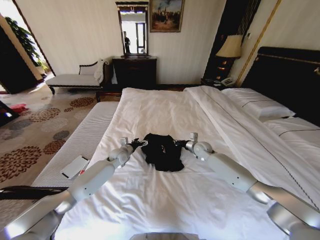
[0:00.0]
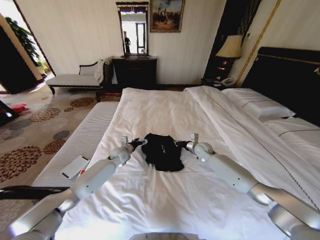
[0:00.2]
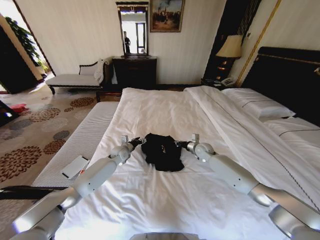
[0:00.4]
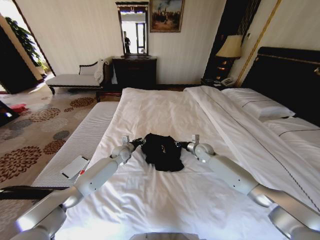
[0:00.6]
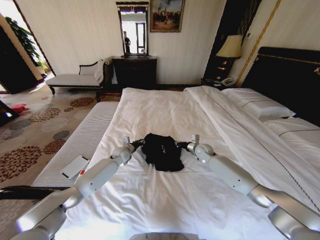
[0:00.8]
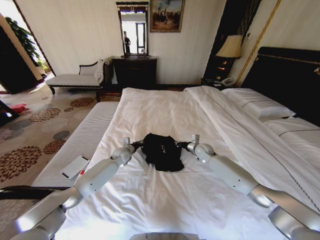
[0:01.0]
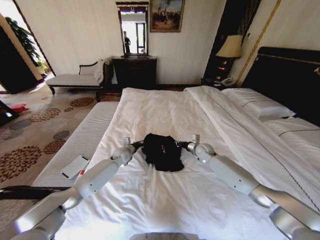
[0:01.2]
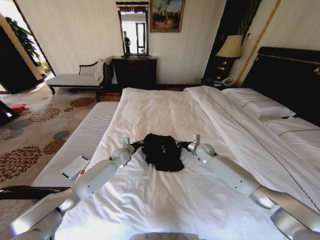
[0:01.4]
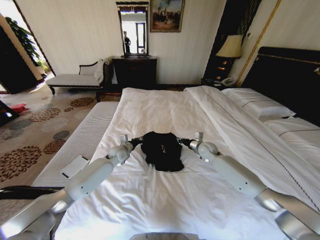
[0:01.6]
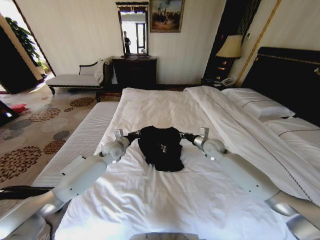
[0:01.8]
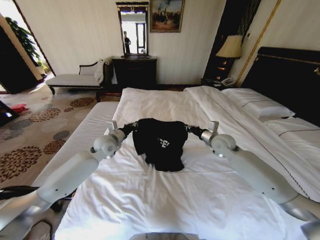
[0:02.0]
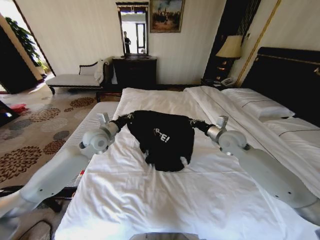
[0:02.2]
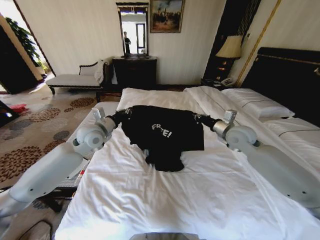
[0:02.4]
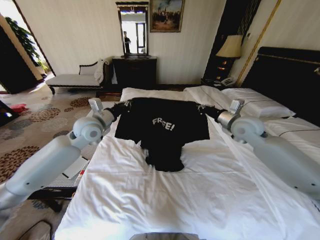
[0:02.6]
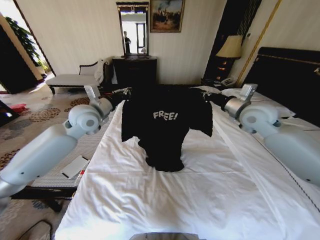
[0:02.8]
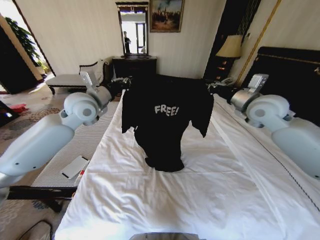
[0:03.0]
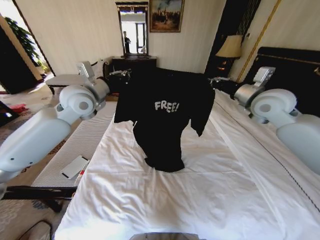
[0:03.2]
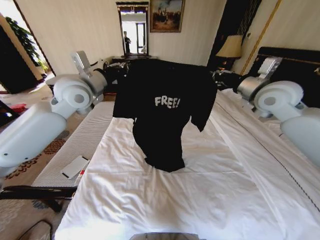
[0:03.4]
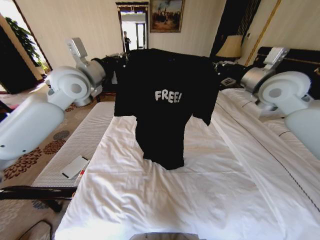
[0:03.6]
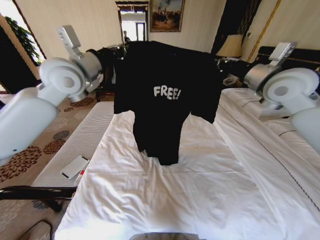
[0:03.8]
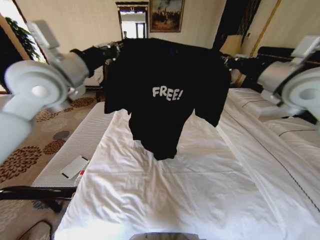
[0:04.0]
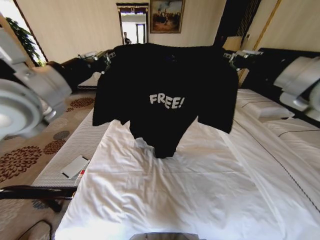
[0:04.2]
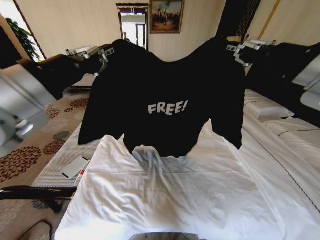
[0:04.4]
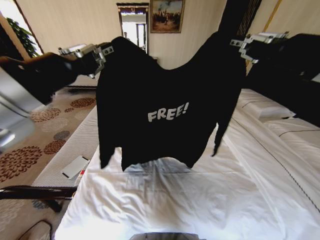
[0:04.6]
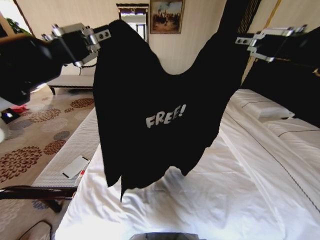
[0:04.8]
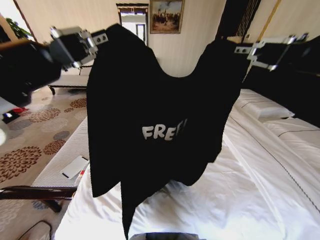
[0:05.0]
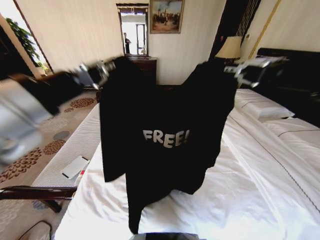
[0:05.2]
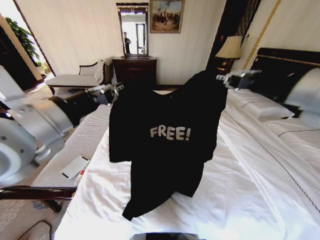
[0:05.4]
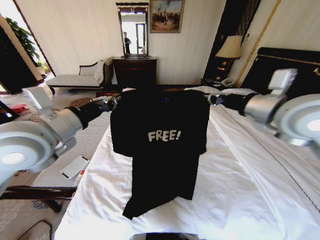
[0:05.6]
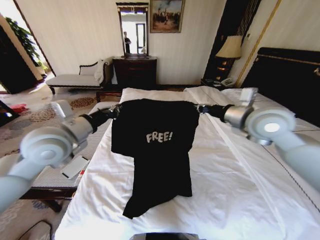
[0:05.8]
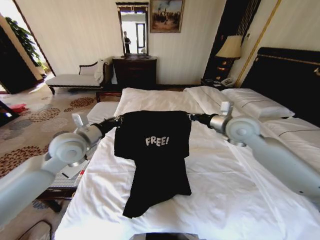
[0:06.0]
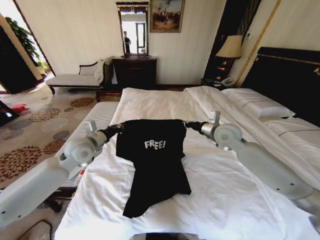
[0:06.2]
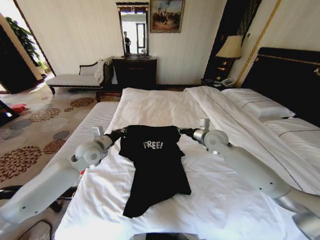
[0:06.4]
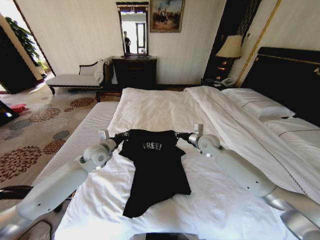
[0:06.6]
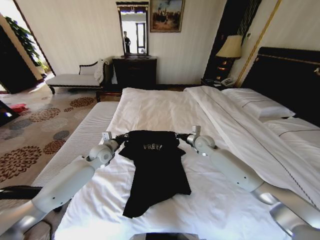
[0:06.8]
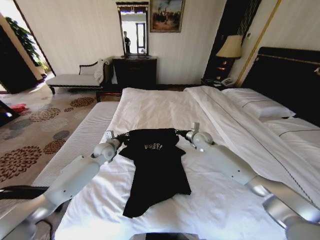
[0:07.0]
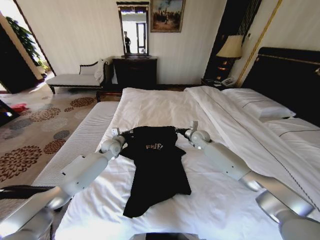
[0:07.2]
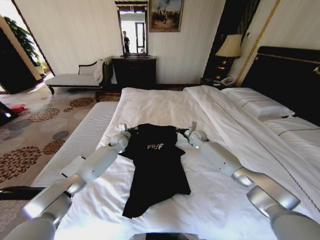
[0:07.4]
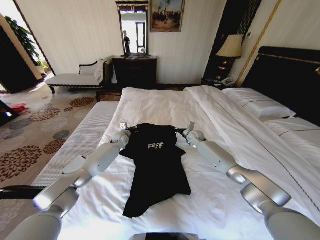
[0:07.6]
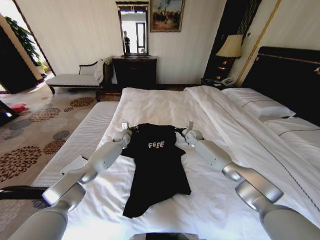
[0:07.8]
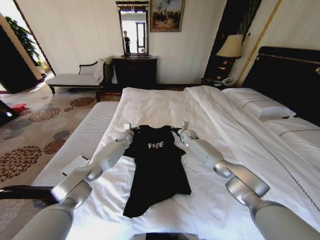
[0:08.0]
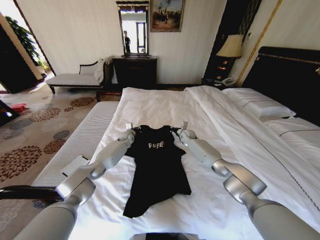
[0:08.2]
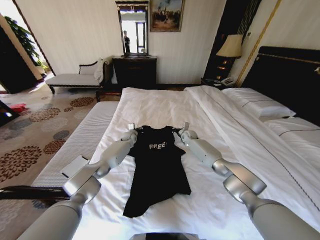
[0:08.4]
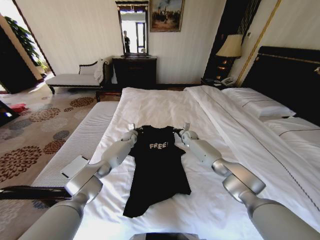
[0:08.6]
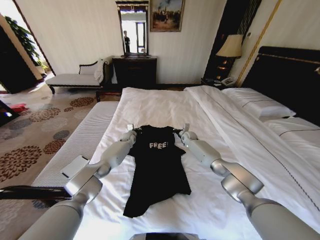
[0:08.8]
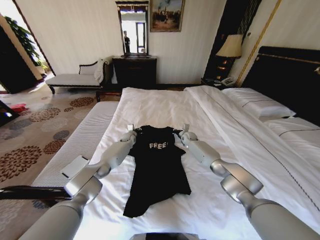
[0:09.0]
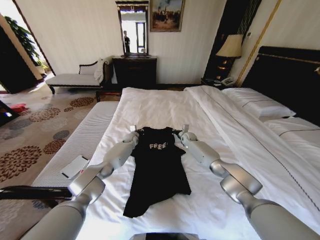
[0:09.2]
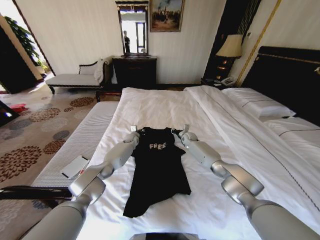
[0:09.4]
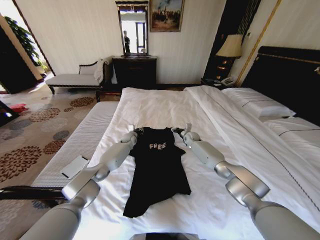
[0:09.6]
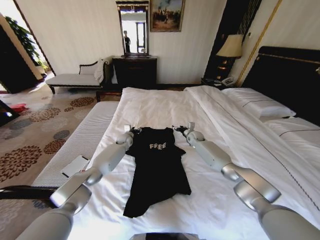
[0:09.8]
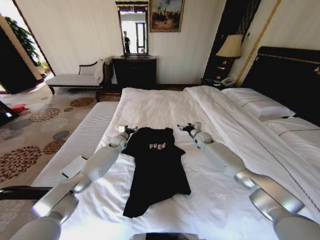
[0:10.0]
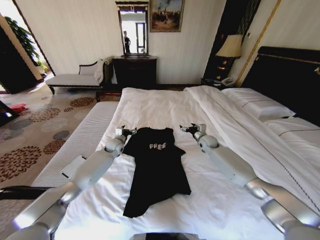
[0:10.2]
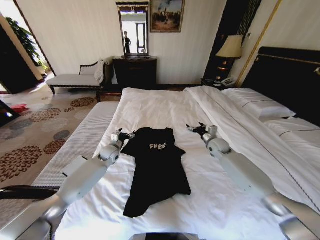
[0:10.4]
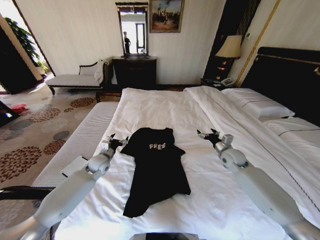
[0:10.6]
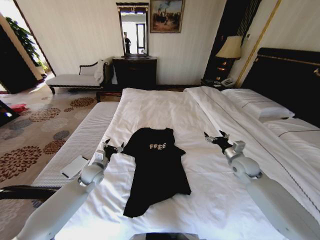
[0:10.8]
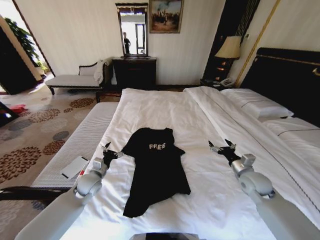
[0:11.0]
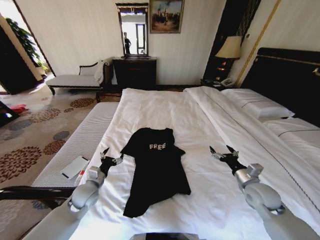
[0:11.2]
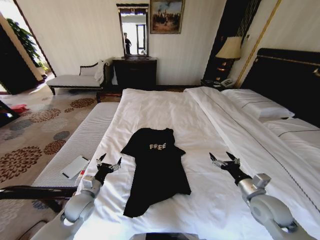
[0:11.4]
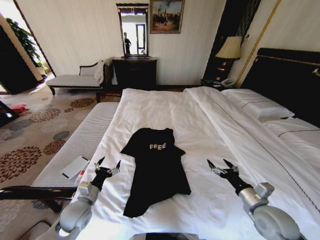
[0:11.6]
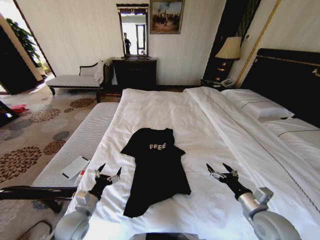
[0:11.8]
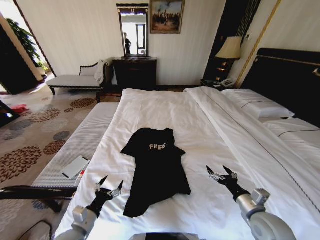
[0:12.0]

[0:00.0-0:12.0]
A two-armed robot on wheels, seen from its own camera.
Task of the whole recording: Fold the clothes on the bed.
0:00.0 to 0:01.6: The left gripper closes up.
0:01.6 to 0:03.0: The two grippers go approximately 30 cm upward.
0:03.0 to 0:04.4: The grippers both shift backward and upward by about 20 cm.
0:04.4 to 0:06.0: Both grippers travel together downward and forward, roughly 20 cm.
0:06.0 to 0:07.6: The left gripper goes some 30 cm forward and downward. Meanwhile the right gripper moves downward and forward, approximately 30 cm.
0:07.6 to 0:09.0: The left gripper moves approximately 10 cm. Meanwhile the right gripper ends up approximately 5 cm from where it was.
0:09.0 to 0:10.4: The right gripper is displaced backward, to the right and upward by about 20 cm, and opens; the left gripper goes approximately 15 cm backward and to the left, and opens up.
0:10.4 to 0:12.0: Both grippers travel together backward, about 35 cm.

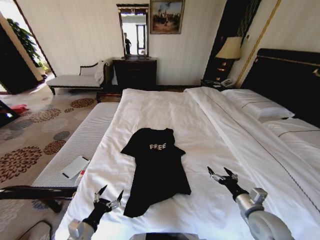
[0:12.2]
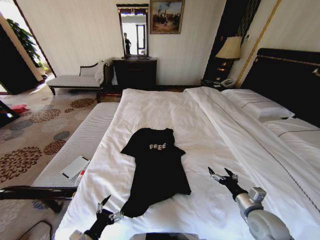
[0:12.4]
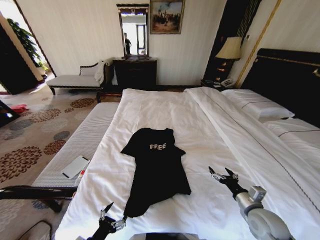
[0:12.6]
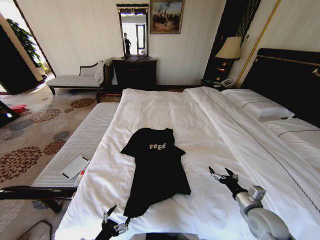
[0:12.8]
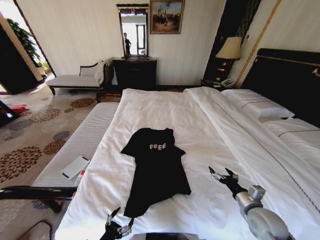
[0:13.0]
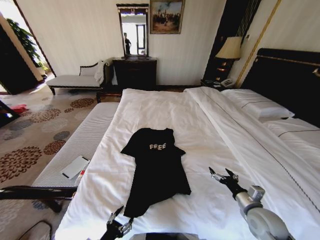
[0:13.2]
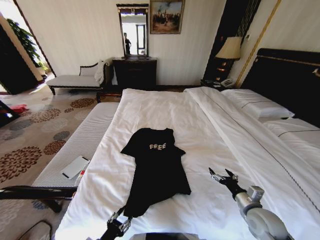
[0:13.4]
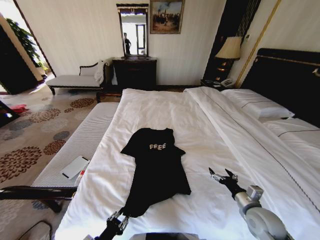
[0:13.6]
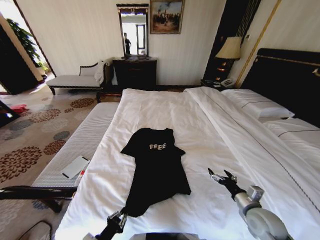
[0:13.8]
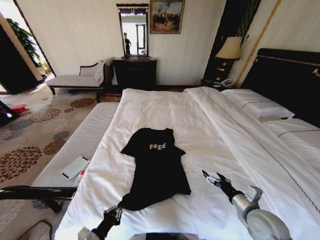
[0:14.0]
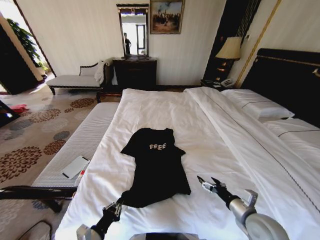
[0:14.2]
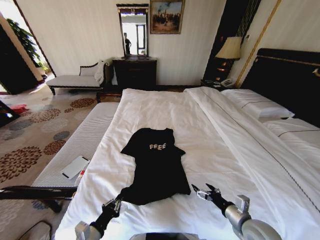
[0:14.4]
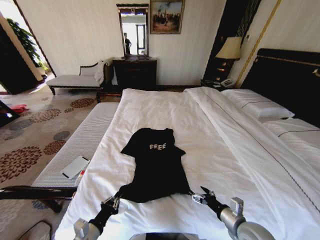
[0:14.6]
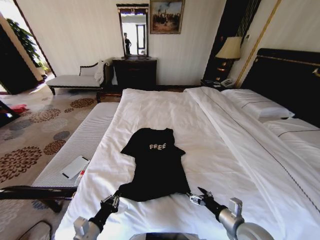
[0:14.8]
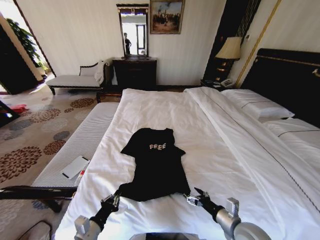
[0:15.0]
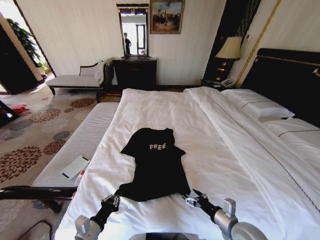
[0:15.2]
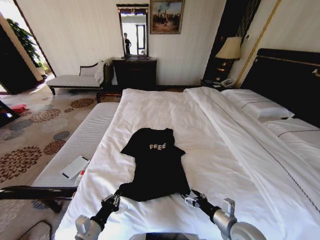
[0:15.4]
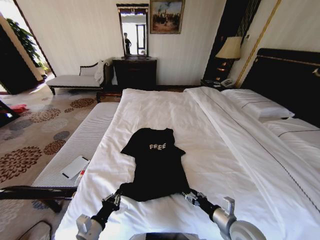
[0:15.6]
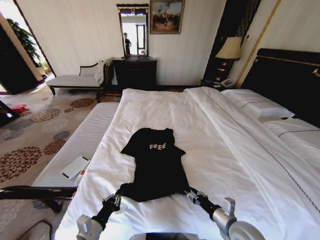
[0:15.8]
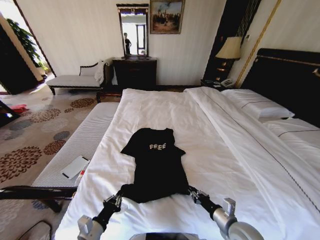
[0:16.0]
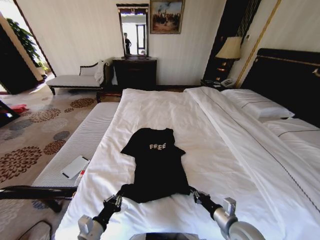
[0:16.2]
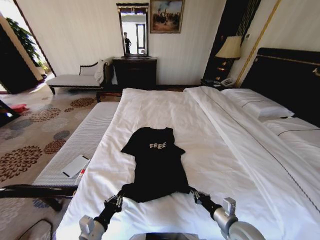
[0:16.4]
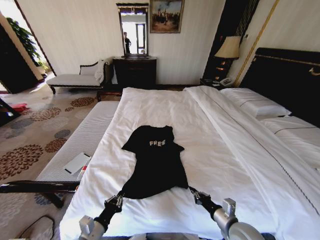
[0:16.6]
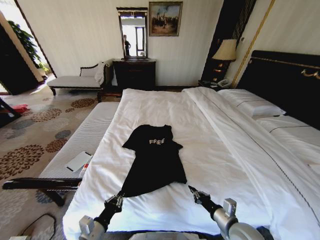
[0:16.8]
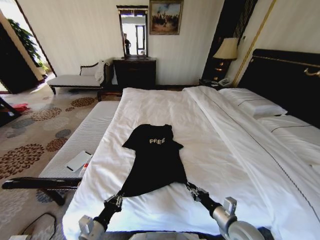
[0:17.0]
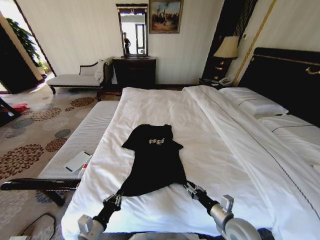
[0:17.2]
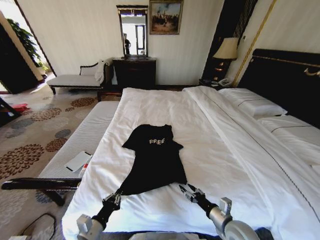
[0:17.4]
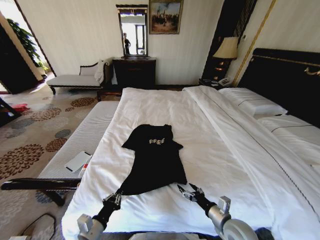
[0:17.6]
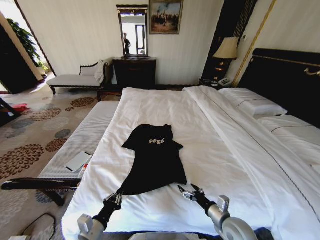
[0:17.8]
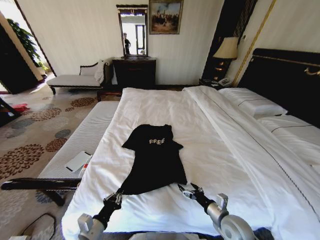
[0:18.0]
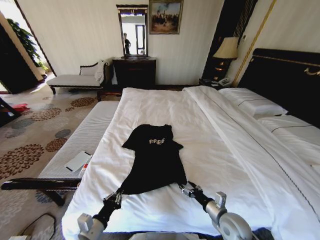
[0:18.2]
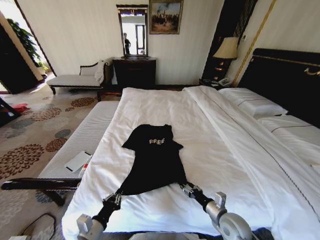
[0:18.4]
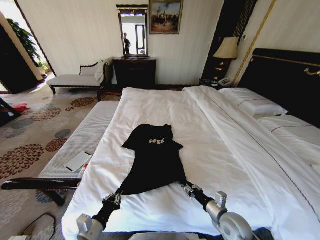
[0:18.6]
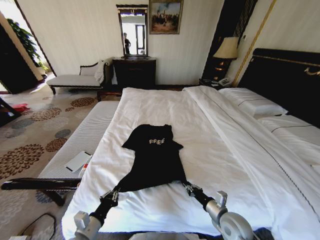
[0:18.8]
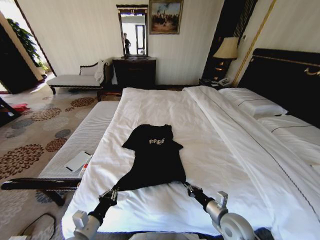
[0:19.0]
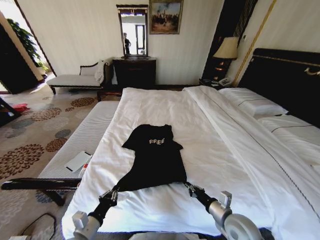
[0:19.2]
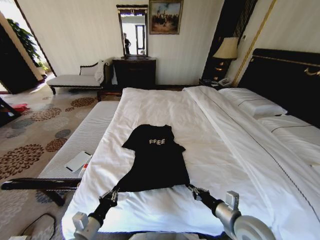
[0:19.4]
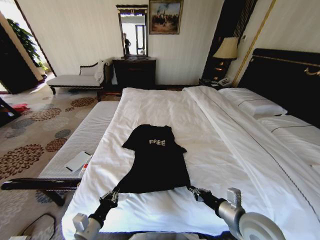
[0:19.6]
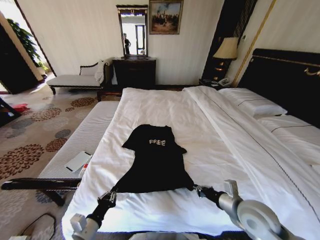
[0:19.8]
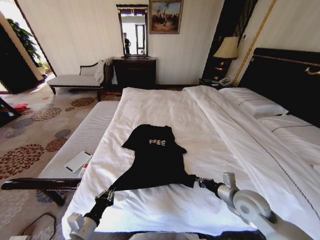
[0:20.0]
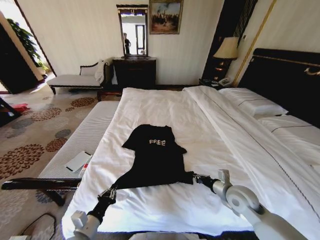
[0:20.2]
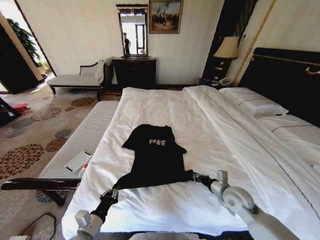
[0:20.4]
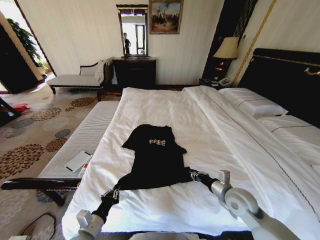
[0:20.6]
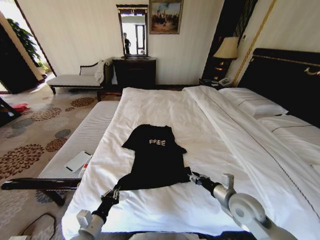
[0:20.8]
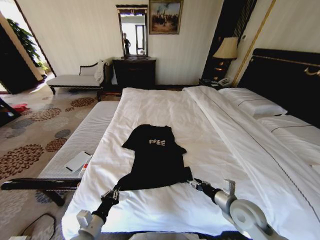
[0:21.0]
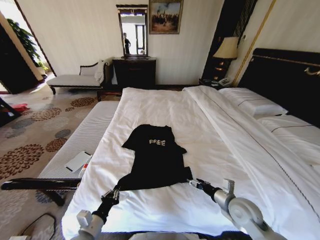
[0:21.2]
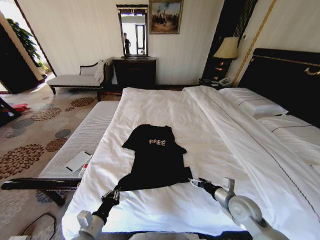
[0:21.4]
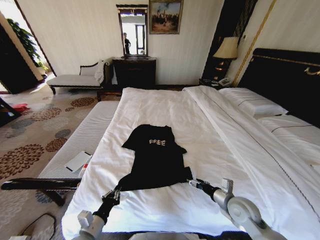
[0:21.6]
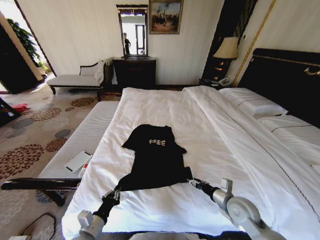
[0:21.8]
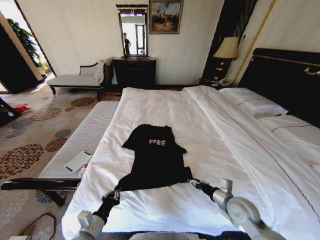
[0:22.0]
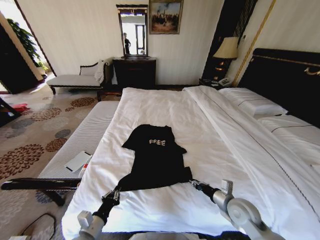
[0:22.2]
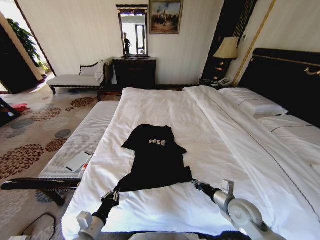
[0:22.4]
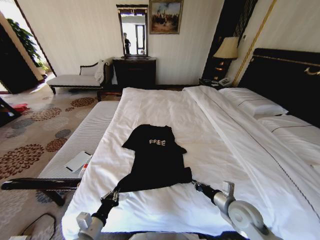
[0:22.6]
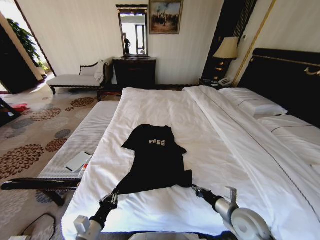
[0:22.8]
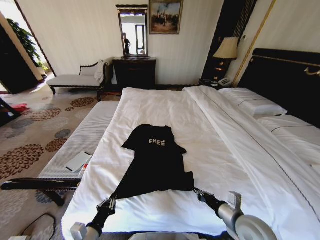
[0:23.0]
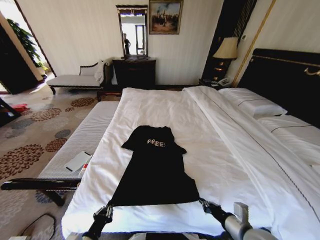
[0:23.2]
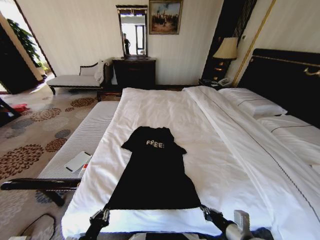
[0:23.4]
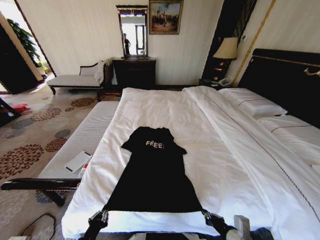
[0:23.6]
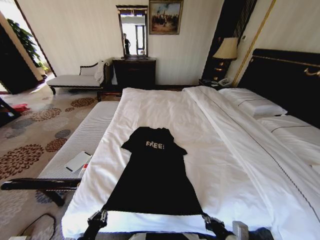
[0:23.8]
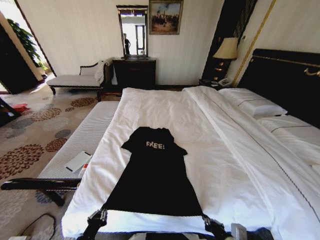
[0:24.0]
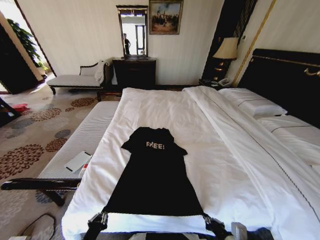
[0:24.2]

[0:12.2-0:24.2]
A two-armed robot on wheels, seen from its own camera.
Task of the whole recording: Fold the clothes on the bed.
0:12.2 to 0:13.8: The left gripper ends up some 5 cm from where it was, and closes.
0:13.8 to 0:15.2: The right gripper goes approximately 10 cm to the left. The left gripper ends up roughly 5 cm from where it was.
0:15.2 to 0:16.6: The right gripper closes.
0:16.6 to 0:18.2: The right gripper opens its fingers.
0:18.2 to 0:19.8: The right gripper moves upward, approximately 10 cm, and closes up.
0:19.8 to 0:21.2: The right gripper is displaced downward by some 5 cm, and opens up.
0:21.2 to 0:22.6: The right gripper closes its fingers.
0:22.6 to 0:24.2: The left gripper travels backward by approximately 5 cm. The right gripper shifts some 15 cm backward.
